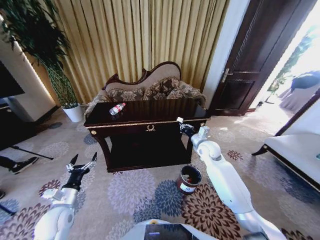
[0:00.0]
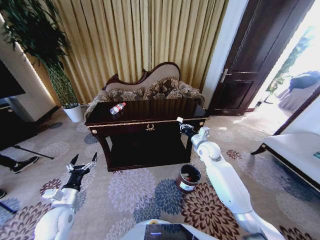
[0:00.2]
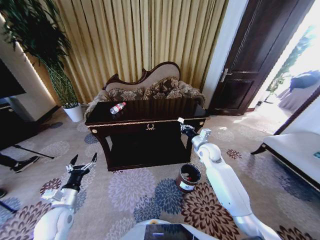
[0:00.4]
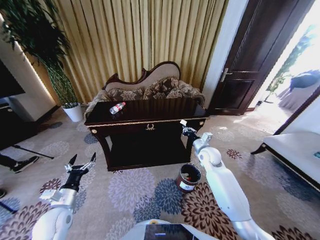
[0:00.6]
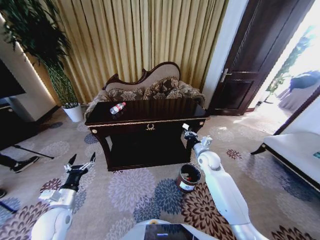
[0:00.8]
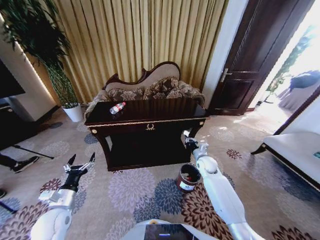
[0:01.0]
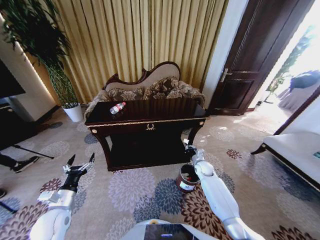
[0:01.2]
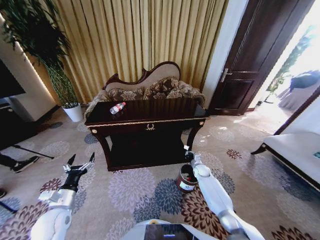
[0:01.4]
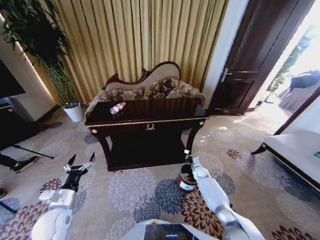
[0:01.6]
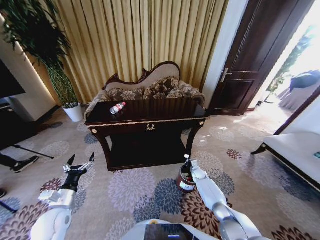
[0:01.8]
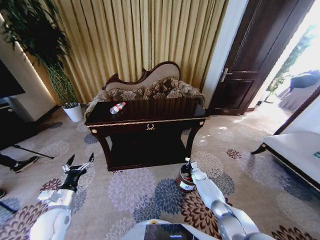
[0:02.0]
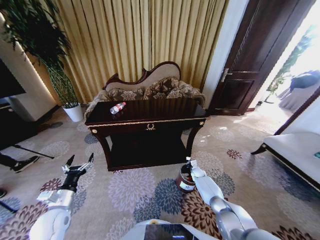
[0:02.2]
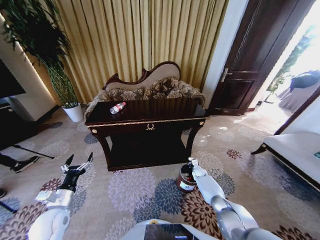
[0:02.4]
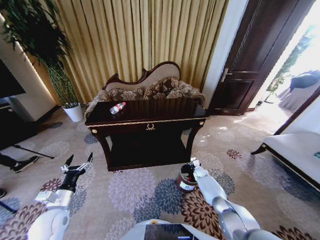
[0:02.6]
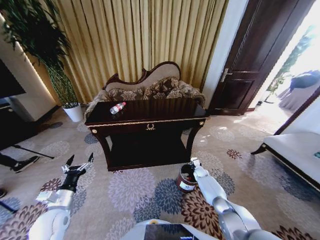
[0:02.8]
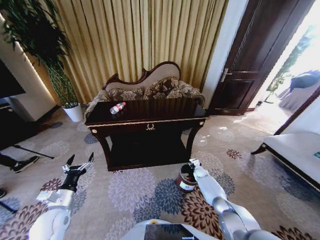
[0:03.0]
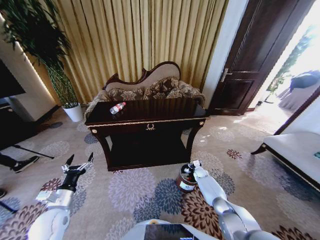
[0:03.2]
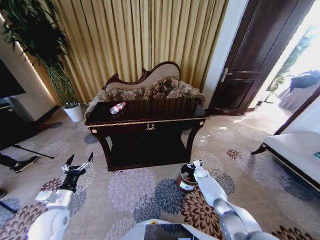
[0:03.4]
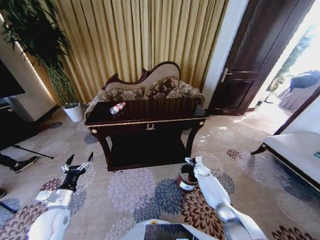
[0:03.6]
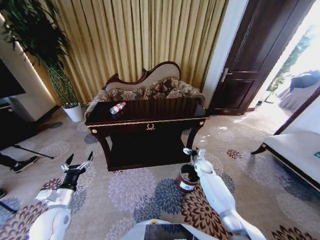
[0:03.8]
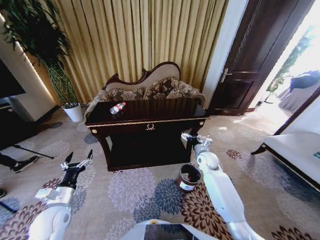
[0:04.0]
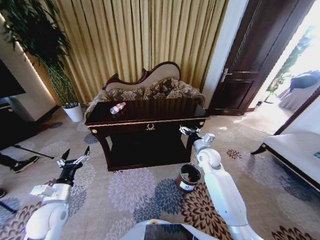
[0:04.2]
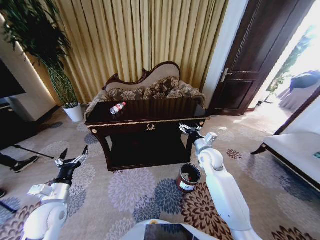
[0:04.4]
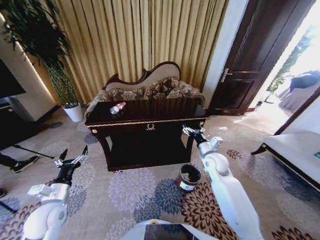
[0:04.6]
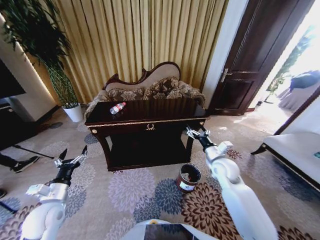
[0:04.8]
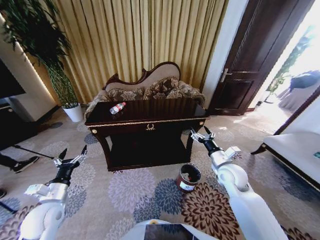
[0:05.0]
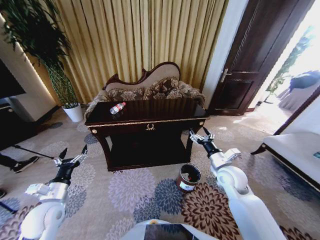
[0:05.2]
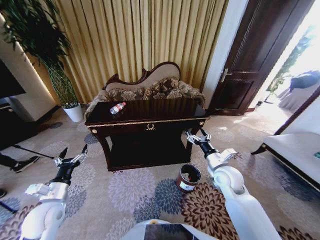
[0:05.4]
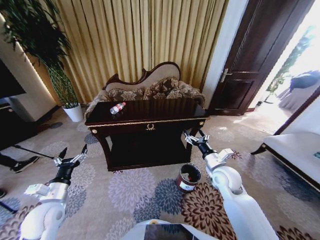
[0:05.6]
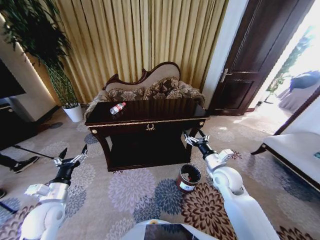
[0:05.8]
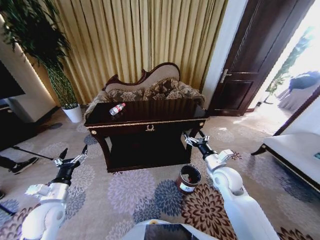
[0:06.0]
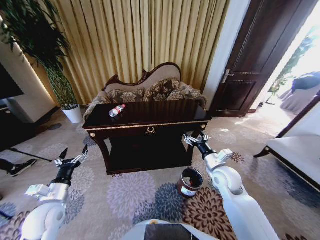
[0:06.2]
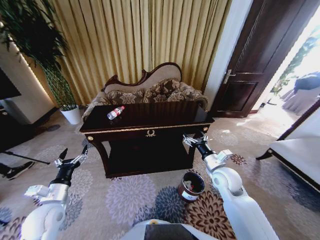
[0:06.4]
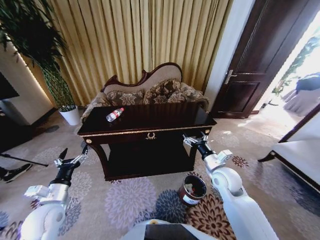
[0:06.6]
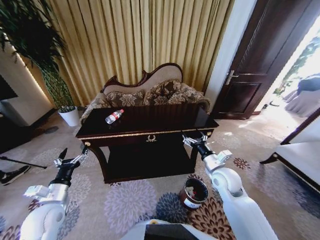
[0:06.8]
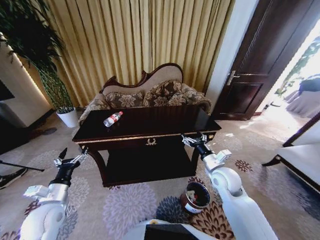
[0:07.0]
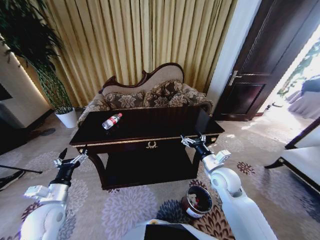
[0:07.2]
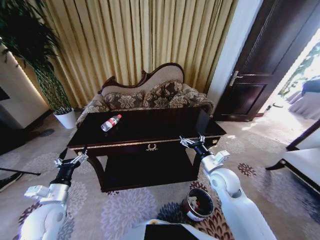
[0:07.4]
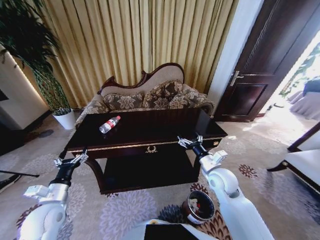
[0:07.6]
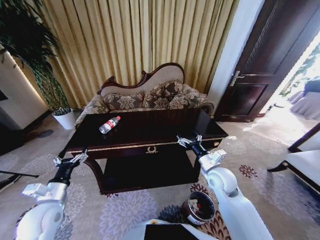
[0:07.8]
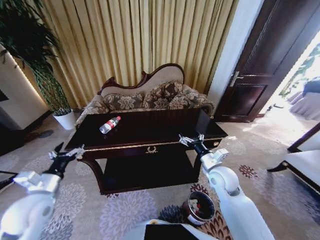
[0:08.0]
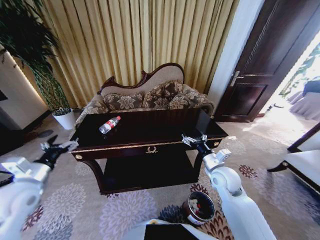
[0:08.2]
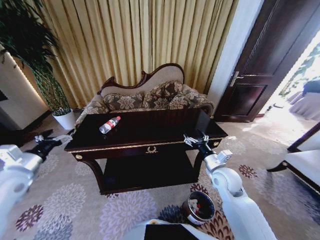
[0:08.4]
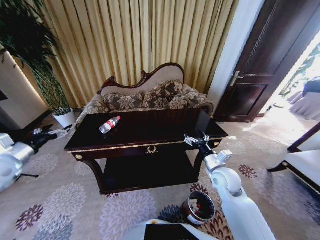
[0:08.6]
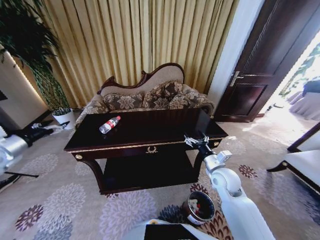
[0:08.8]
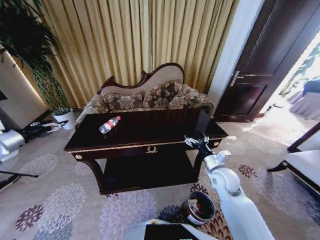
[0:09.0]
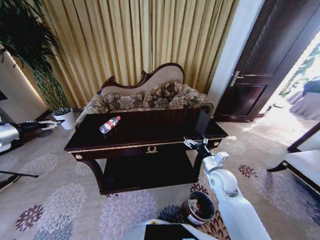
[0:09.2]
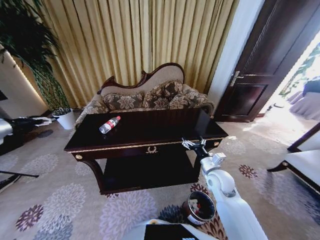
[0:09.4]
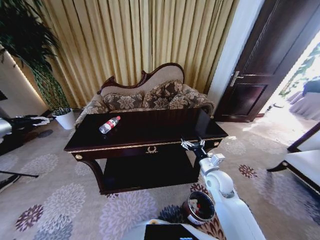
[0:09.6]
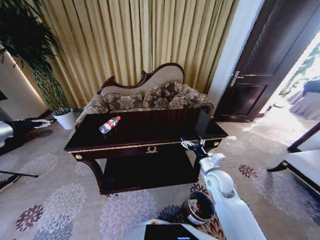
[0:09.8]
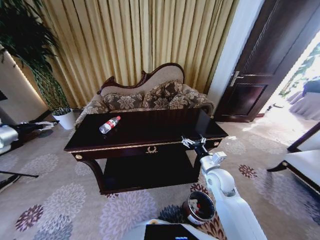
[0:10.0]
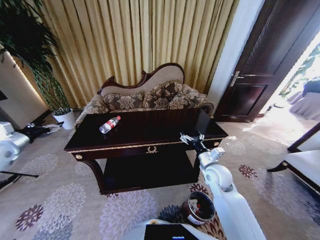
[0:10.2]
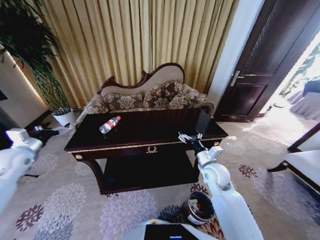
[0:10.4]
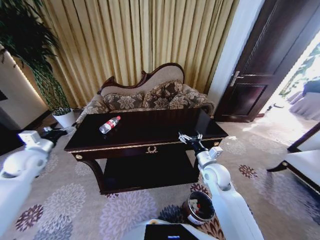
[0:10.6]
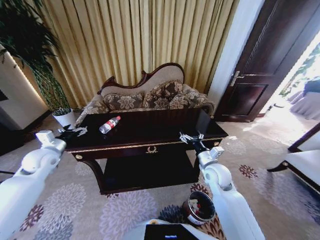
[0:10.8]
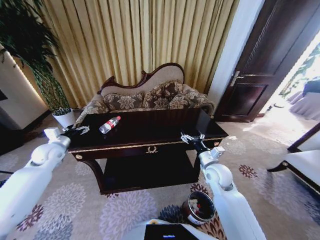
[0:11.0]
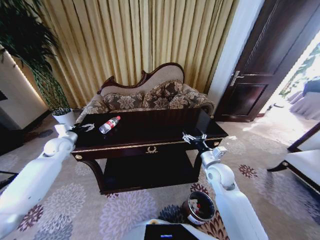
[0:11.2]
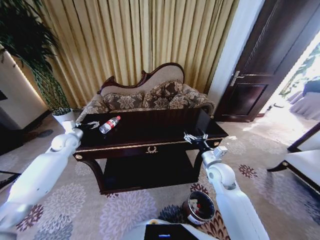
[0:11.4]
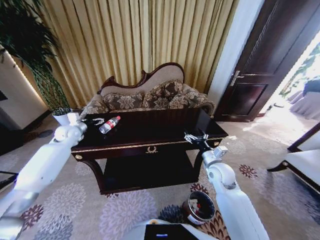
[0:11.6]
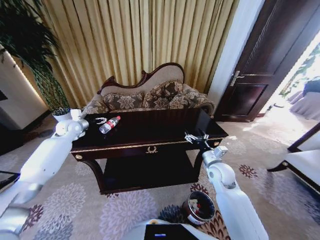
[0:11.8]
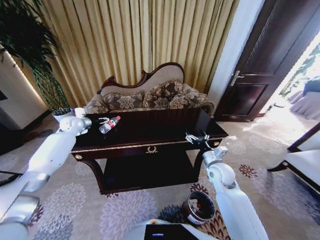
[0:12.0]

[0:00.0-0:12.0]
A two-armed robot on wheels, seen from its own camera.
Task of the whole recording: Move to the front of the table and place the trash on the table into the trash bin.
0:00.0 to 0:01.6: The right gripper travels downward by roughly 25 cm.
0:01.6 to 0:03.0: The right gripper opens up.
0:03.0 to 0:04.4: The right gripper goes approximately 30 cm upward, and opens up.
0:04.4 to 0:06.0: The right gripper travels backward by approximately 10 cm.
0:07.6 to 0:09.0: The left gripper travels to the left, upward and forward by approximately 30 cm.
0:09.0 to 0:10.4: The left gripper travels downward by about 5 cm.
0:10.4 to 0:12.0: The left gripper shifts roughly 25 cm forward and to the right.

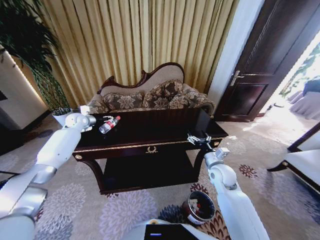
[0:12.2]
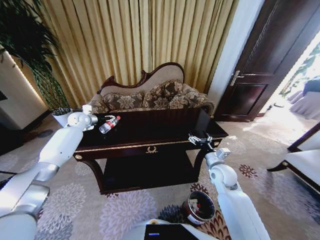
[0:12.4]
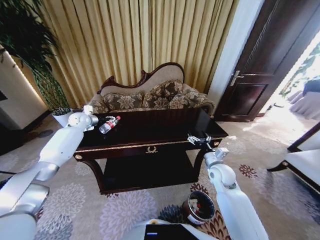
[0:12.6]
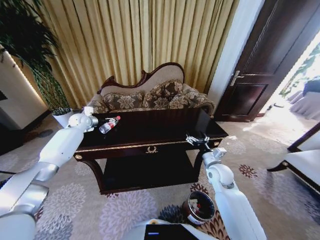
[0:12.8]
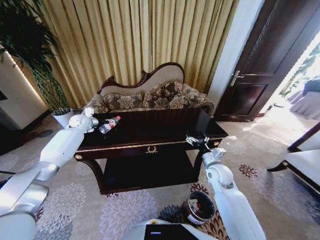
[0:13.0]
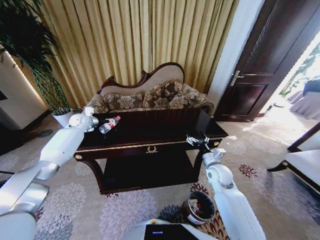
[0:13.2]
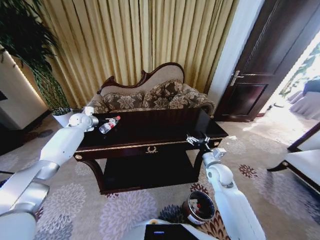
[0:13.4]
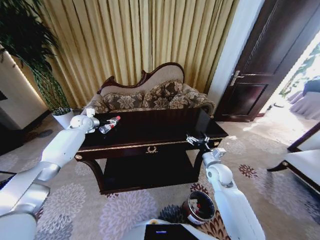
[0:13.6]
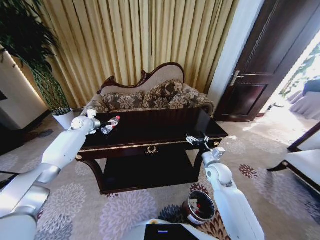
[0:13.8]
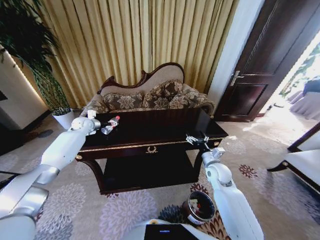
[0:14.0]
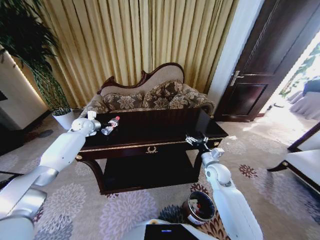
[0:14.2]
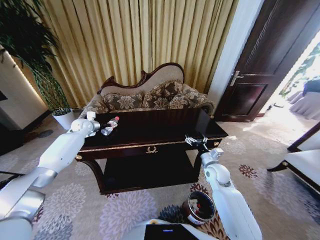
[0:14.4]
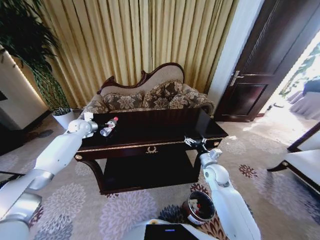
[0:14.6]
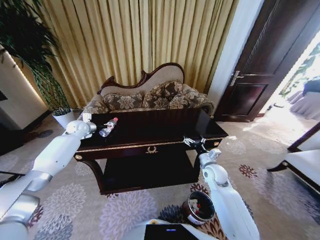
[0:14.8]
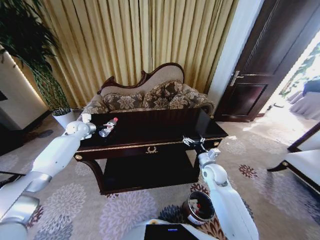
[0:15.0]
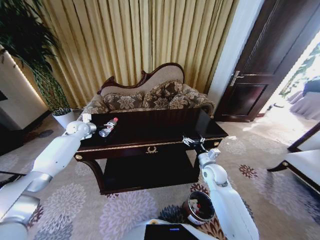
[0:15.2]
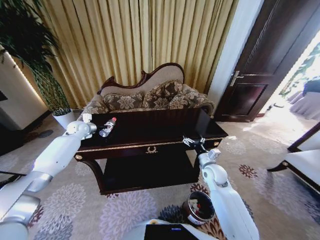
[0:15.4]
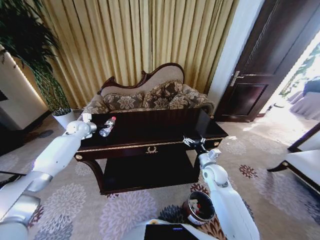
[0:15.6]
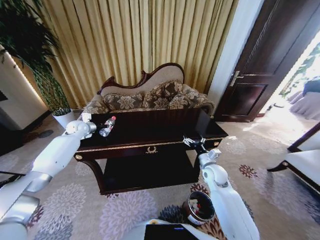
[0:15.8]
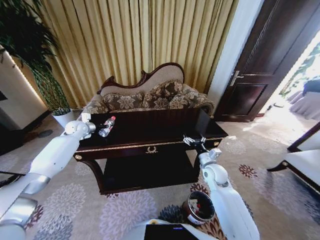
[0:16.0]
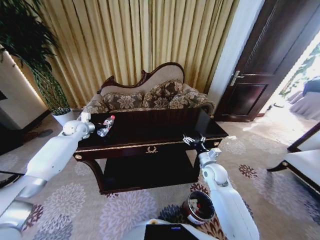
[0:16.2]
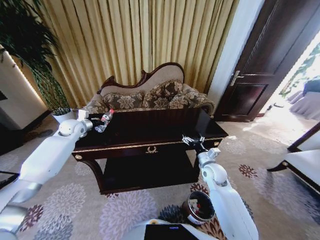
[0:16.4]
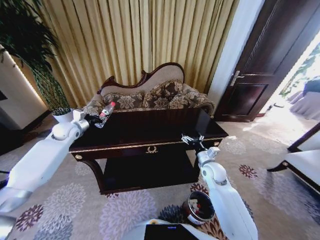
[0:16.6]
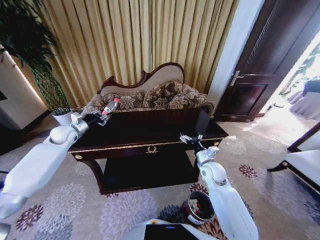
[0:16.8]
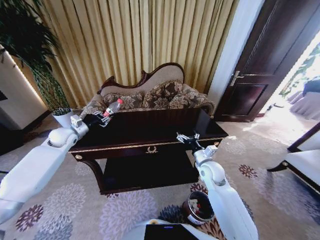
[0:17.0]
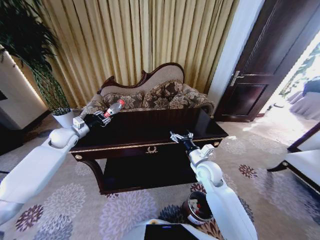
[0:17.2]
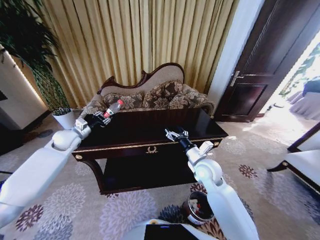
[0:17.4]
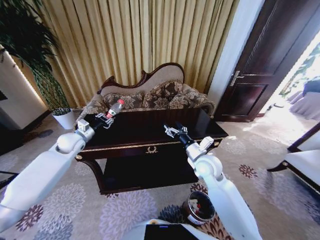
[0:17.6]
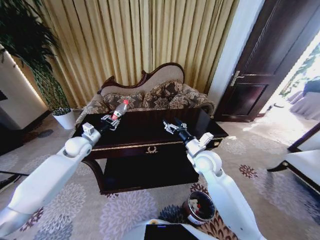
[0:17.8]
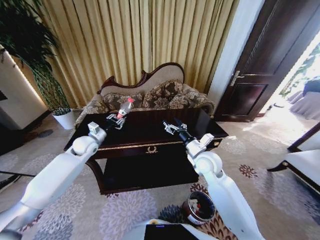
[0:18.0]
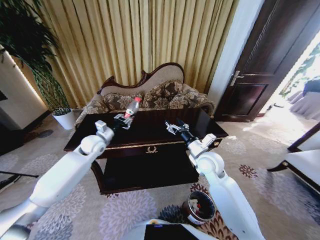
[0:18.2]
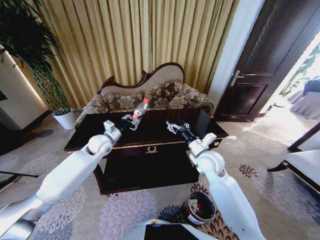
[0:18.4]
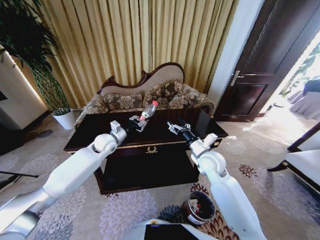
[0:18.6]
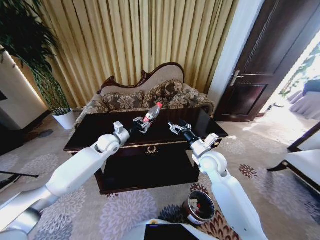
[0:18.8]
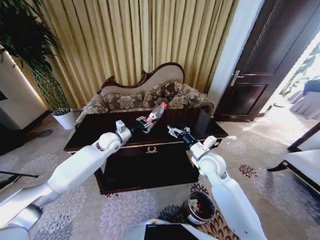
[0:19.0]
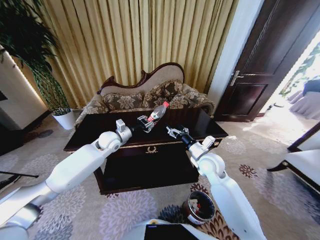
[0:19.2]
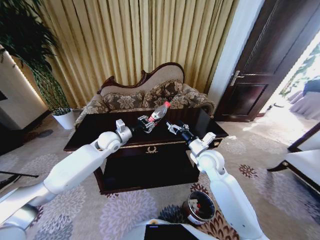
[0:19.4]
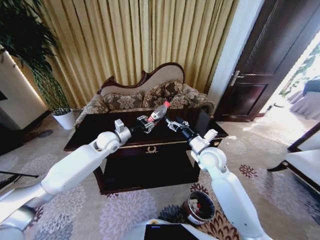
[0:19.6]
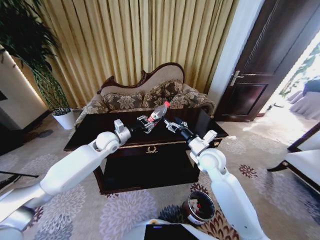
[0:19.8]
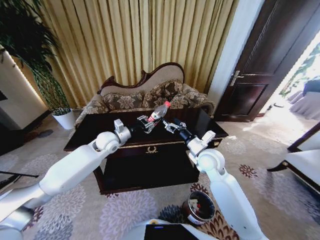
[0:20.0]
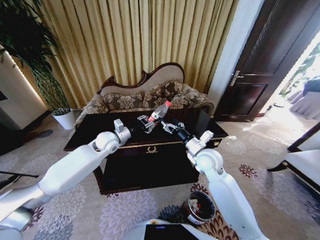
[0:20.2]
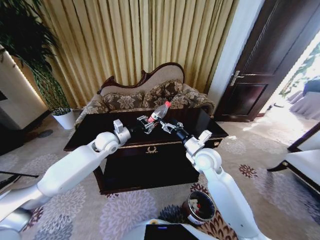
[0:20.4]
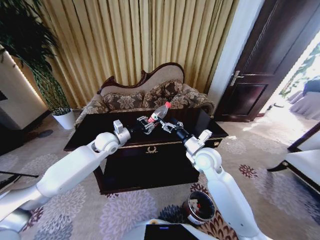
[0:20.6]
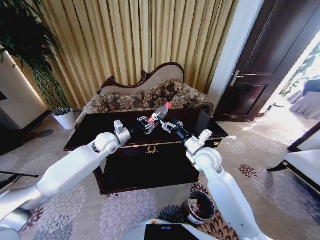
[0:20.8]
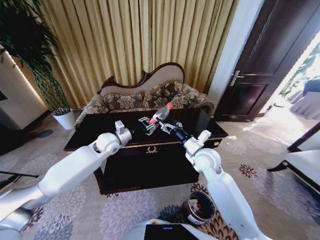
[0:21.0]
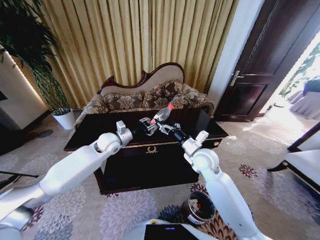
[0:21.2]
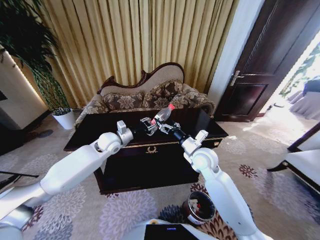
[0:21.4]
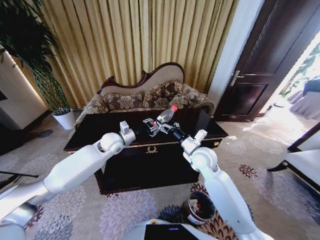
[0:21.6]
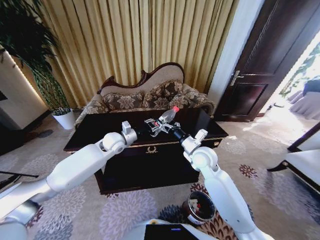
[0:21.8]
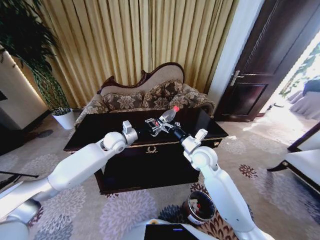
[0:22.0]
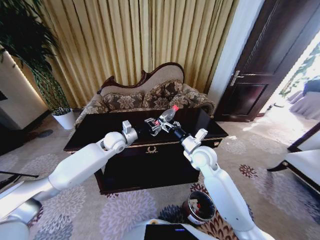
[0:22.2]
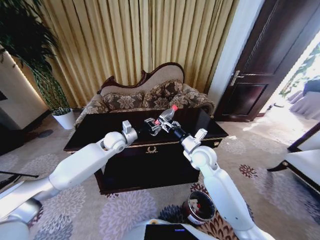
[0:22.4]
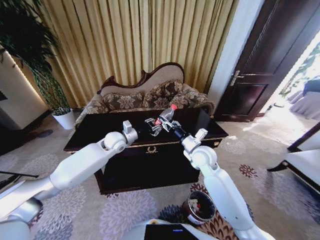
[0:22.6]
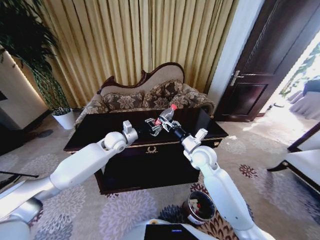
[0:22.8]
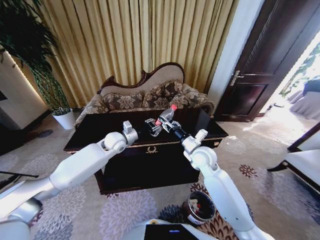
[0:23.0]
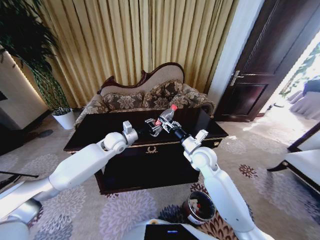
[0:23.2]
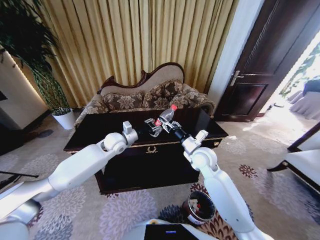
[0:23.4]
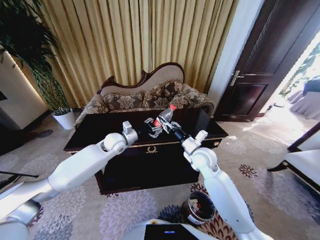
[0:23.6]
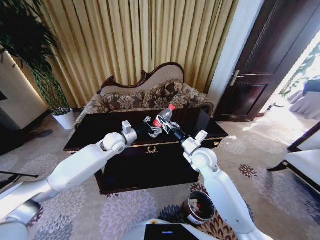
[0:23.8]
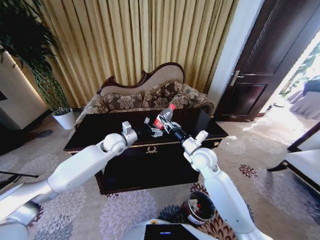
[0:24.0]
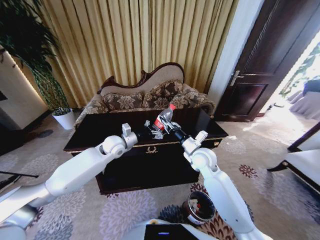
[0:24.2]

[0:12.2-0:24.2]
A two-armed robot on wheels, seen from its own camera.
Task of the whole recording: Move to the front of the table and place the trash on the table into the trash bin.
0:12.2 to 0:15.2: The grippers stay close to where they were, moving slightly.
0:15.2 to 0:16.6: The left gripper shifts approximately 5 cm backward, and closes up.
0:16.6 to 0:18.2: The left gripper moves to the right and backward, approximately 15 cm, while the right gripper moves upward and to the left, about 10 cm.
0:18.2 to 0:19.8: The left gripper moves to the right, approximately 5 cm.
0:19.8 to 0:21.2: There are only small adjustments of the grippers.
0:21.2 to 0:22.6: The right gripper closes.
0:22.6 to 0:24.2: The left gripper opens its fingers.
